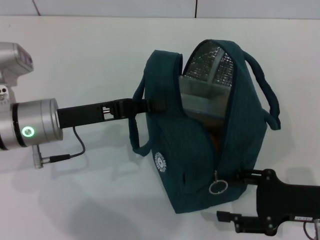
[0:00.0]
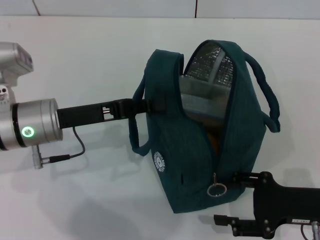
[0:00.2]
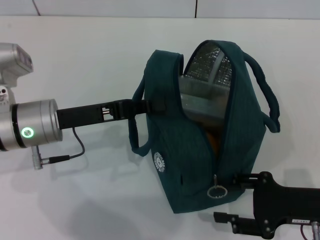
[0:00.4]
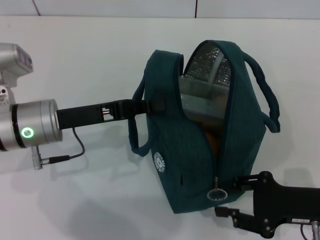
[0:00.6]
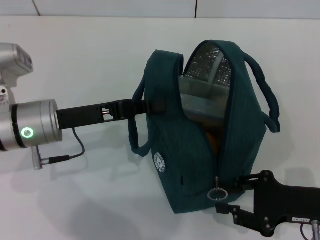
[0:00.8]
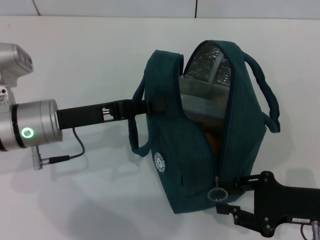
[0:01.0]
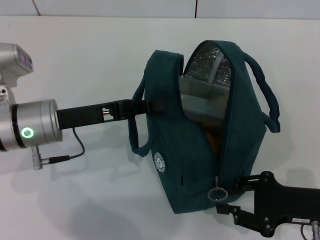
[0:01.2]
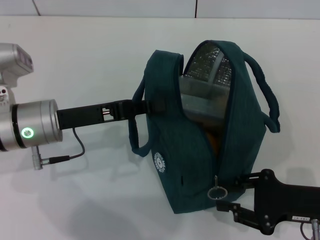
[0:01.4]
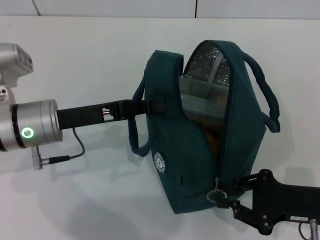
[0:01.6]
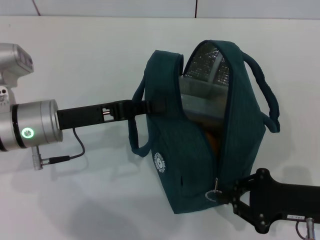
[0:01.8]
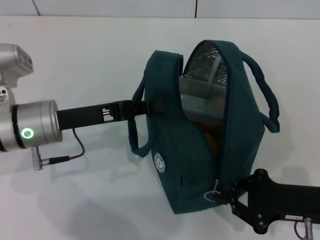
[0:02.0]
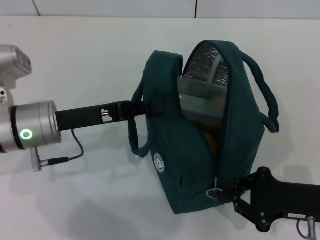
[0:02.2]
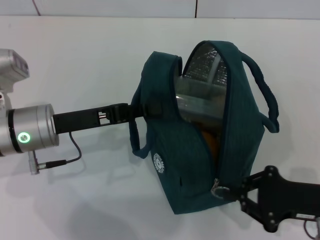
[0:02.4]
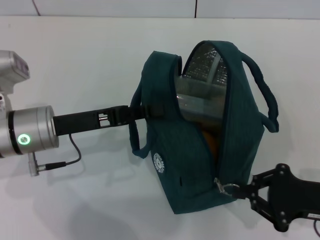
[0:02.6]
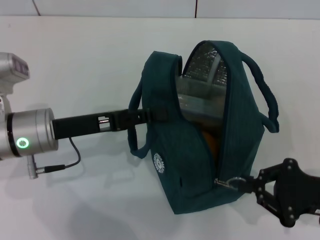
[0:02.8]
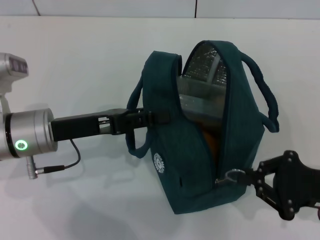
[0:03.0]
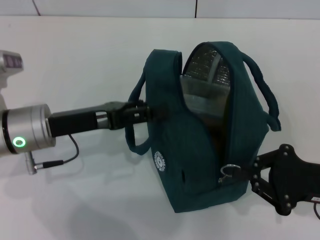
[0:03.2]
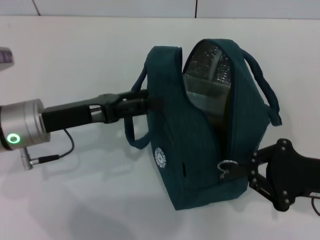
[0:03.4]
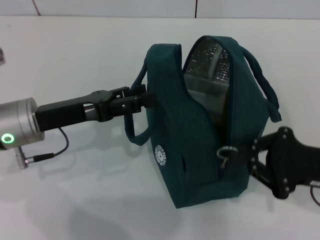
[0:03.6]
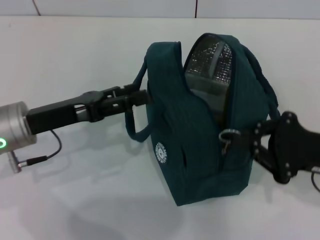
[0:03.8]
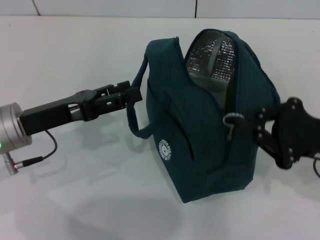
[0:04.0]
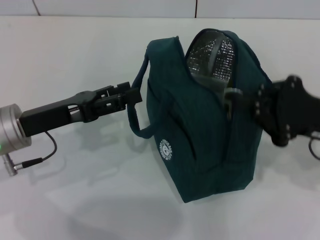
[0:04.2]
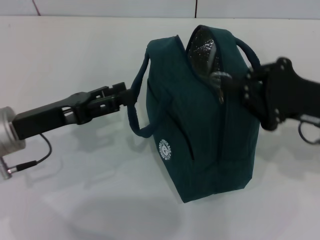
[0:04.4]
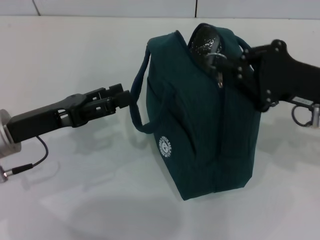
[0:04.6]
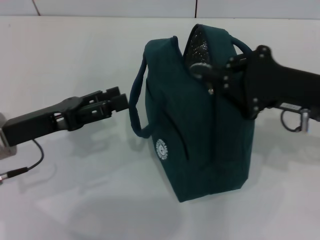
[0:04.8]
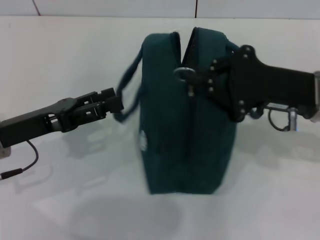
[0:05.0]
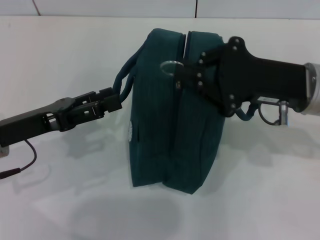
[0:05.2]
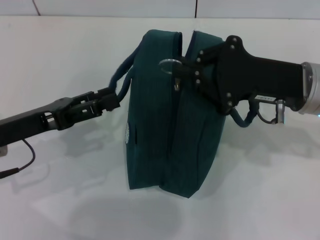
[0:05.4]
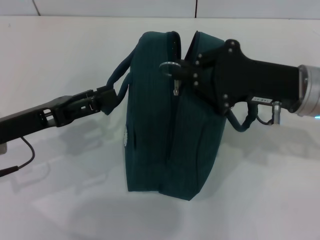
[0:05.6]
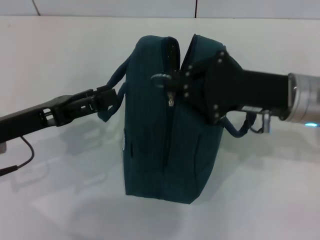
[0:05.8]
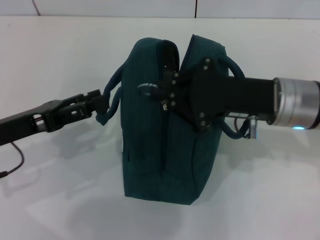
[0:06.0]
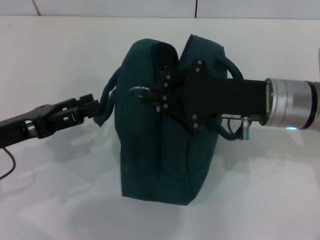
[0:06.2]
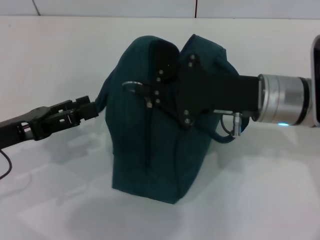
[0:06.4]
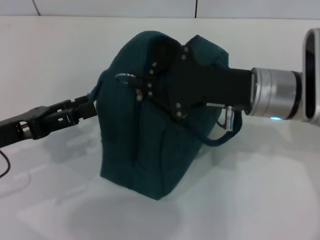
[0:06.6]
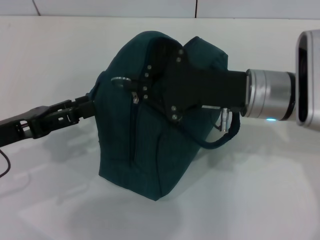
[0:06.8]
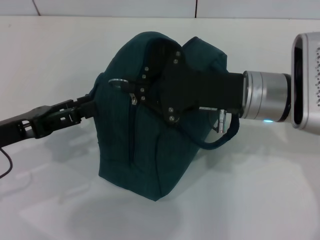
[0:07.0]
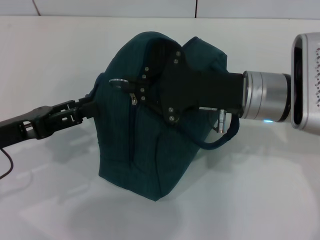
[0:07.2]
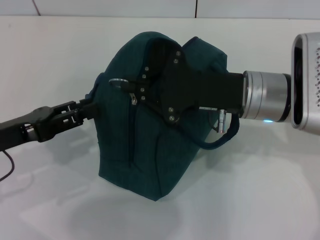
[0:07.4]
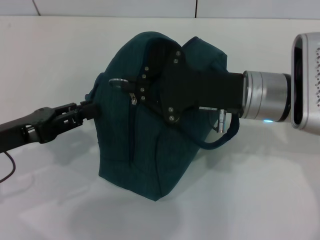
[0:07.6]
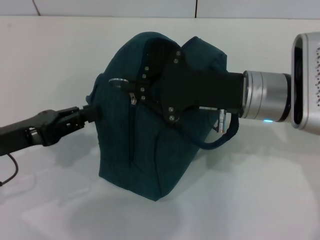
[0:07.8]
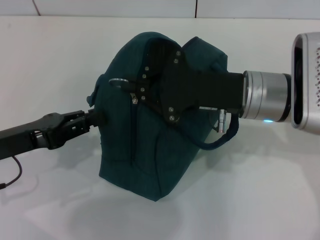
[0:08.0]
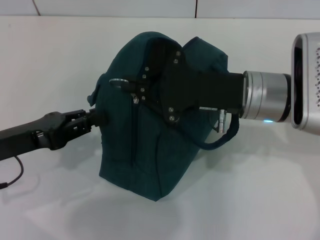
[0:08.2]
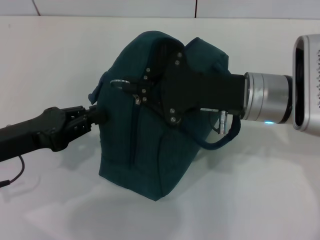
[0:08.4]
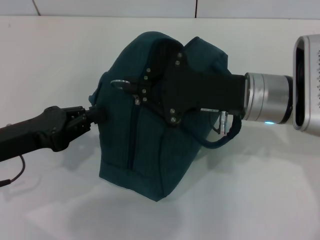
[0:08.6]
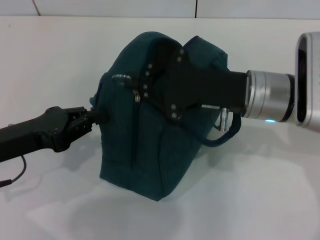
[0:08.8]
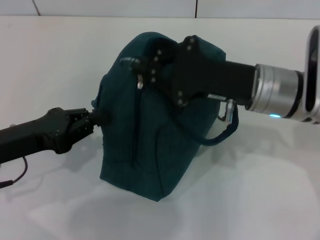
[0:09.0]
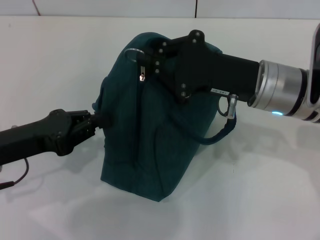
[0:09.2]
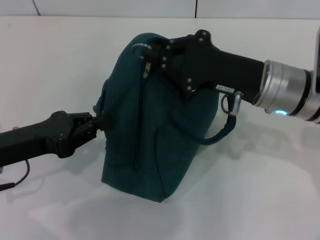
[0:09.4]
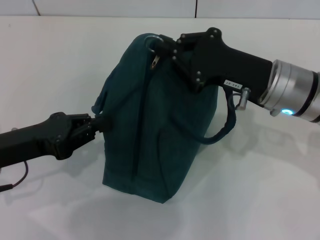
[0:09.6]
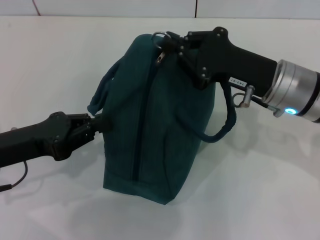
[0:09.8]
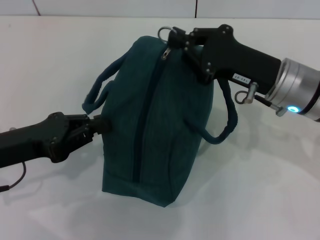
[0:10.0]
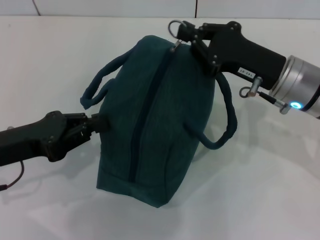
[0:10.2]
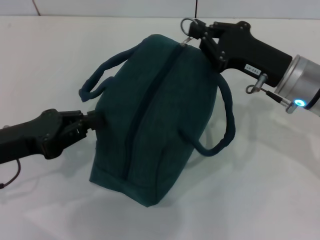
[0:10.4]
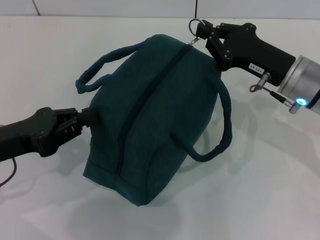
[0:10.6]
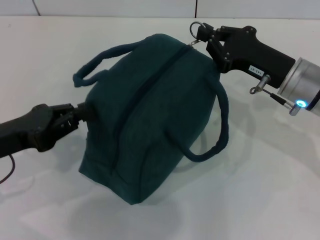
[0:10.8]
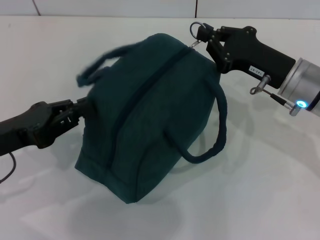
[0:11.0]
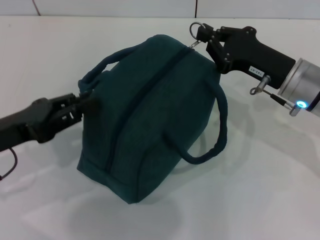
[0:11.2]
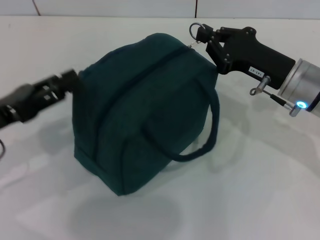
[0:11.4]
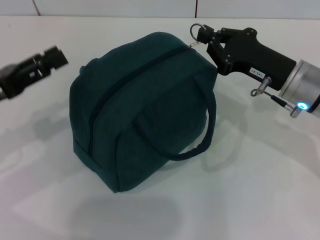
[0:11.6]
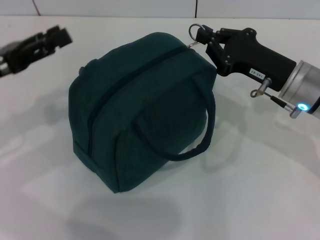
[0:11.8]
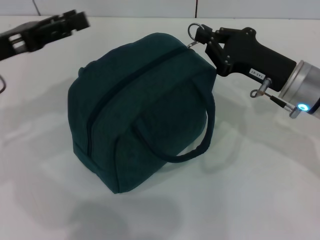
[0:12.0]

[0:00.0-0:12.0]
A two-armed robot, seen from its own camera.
Step, 0:00.0 to 0:03.6: Hold the lunch bag with your left hand.
0:00.0 to 0:01.6: The right gripper closes up.
0:01.6 to 0:03.0: The left gripper opens.
0:03.0 to 0:04.4: The left gripper opens up. The right gripper goes approximately 10 cm forward and upward.
0:04.4 to 0:06.0: The right gripper travels to the left by about 10 cm.
0:06.0 to 0:07.6: The left gripper closes.
0:07.6 to 0:09.0: The left gripper closes.
0:09.0 to 0:10.4: The right gripper ends up some 5 cm from where it was.
0:10.4 to 0:12.0: The left gripper goes roughly 10 cm forward and upward, and opens its fingers.

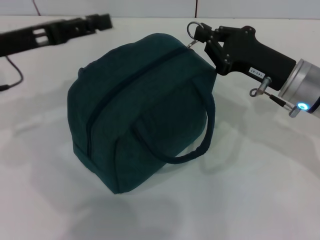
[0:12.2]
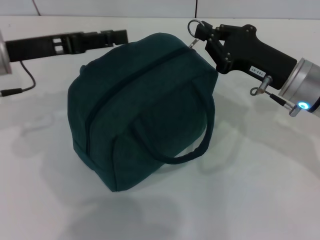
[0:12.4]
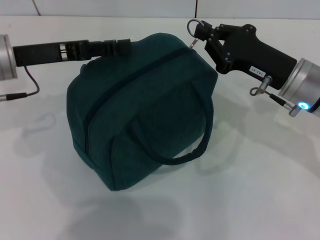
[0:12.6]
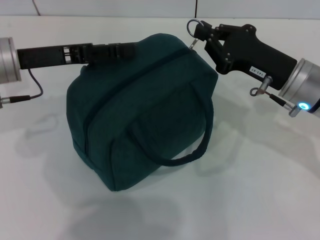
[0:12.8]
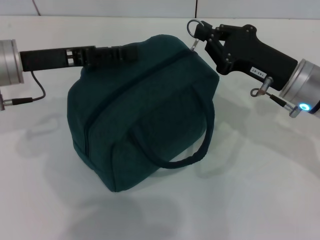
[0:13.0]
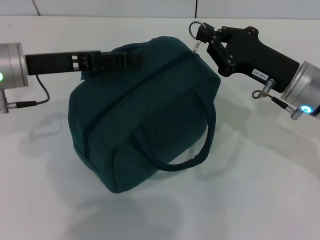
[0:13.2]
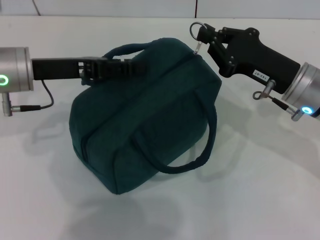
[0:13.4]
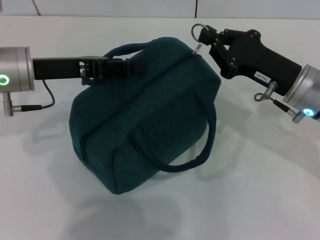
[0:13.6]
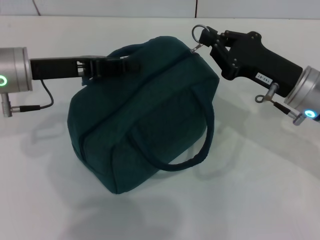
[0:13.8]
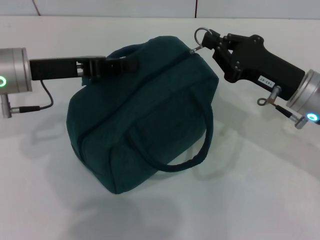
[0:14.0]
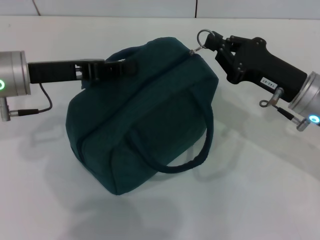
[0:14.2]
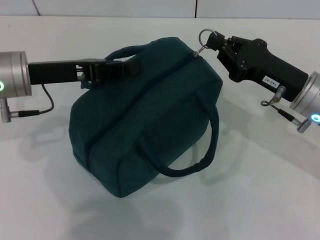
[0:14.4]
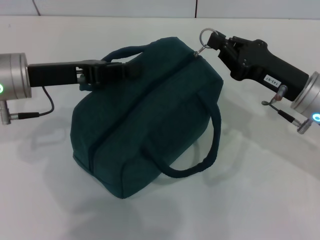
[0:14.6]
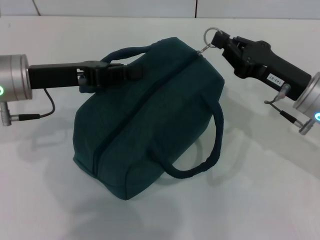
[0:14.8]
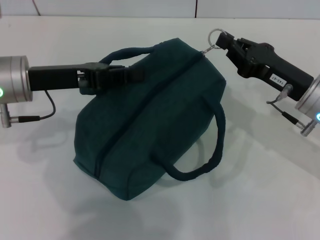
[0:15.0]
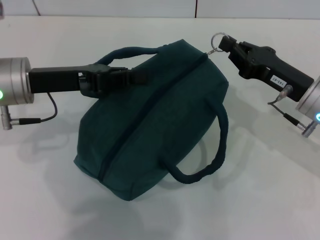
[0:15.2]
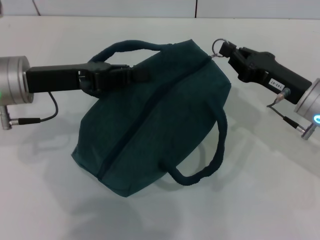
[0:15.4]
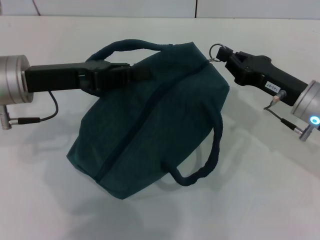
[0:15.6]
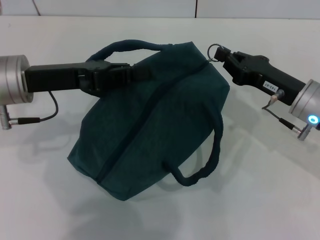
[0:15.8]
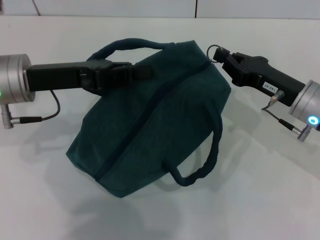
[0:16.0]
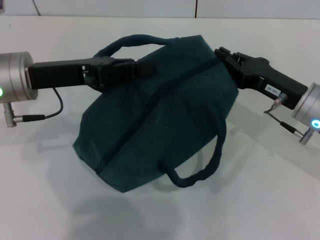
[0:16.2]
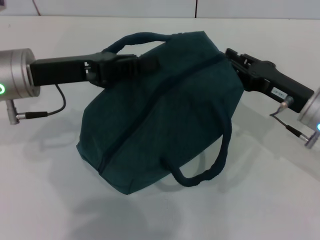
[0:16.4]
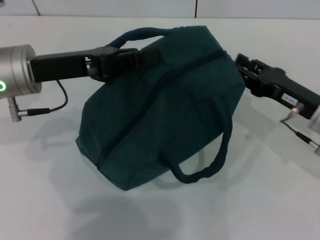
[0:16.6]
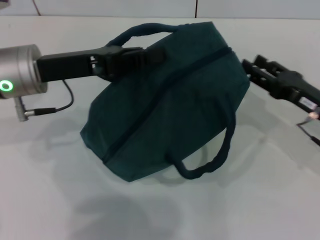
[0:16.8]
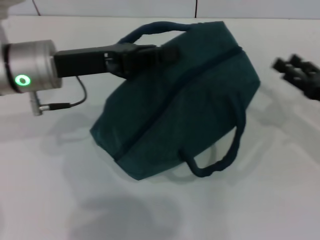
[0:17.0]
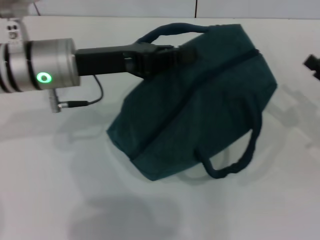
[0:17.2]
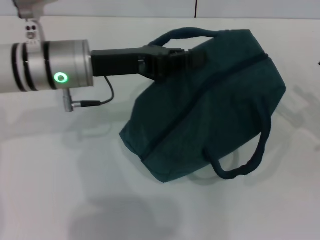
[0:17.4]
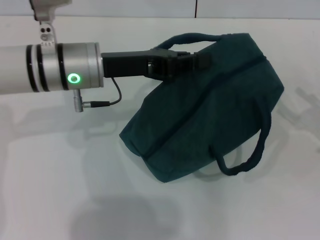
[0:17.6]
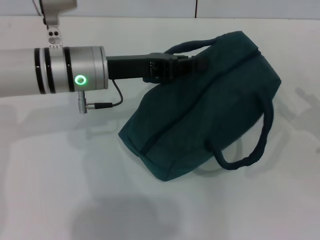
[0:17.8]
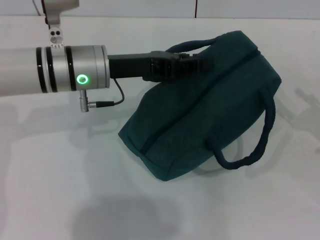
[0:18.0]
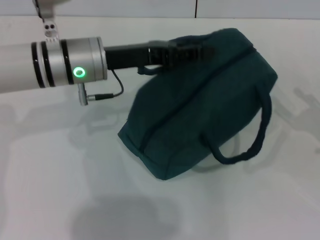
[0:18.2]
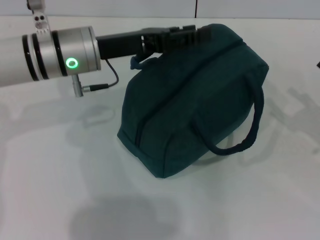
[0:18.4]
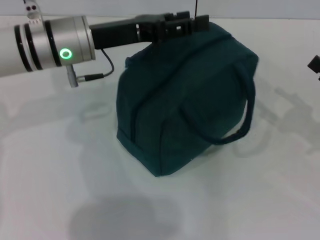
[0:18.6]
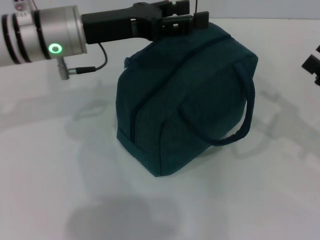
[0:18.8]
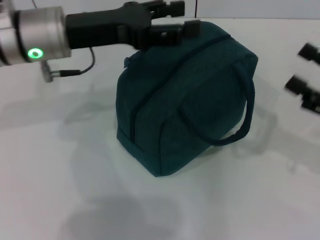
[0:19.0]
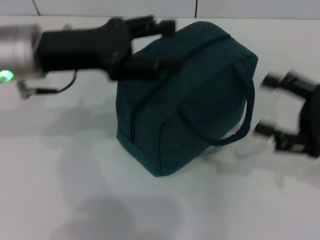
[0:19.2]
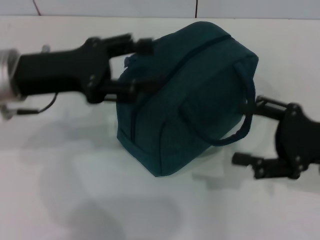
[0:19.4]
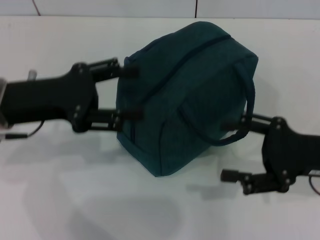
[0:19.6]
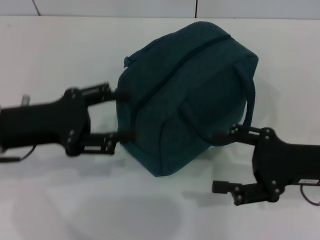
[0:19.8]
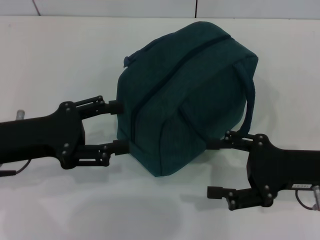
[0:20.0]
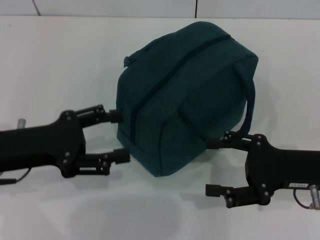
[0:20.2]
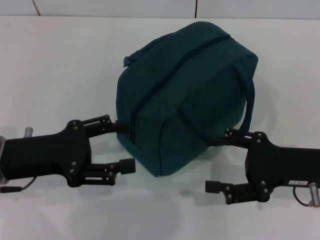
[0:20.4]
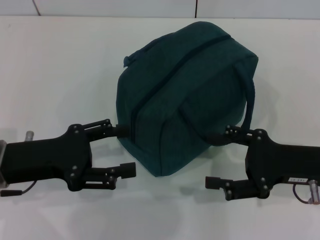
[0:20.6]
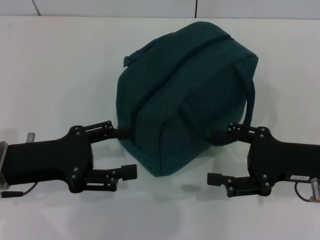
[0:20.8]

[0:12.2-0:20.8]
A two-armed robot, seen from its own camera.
Step, 0:12.2 to 0:16.8: Zip up the lunch bag with your right hand.
Step, 0:17.0 to 0:18.6: Hold the lunch bag with your left hand.
0:12.2 to 0:13.6: The left gripper closes up.
0:13.6 to 0:15.0: The left gripper closes up.
0:16.6 to 0:18.0: The left gripper heads to the right, covering about 5 cm. Meanwhile the right gripper is displaced to the right by approximately 10 cm, and opens.
0:18.0 to 0:19.4: The right gripper is displaced to the left by some 10 cm. The left gripper moves to the left and backward, approximately 10 cm, and opens.
0:19.4 to 0:20.8: The left gripper moves backward and downward, roughly 10 cm.
